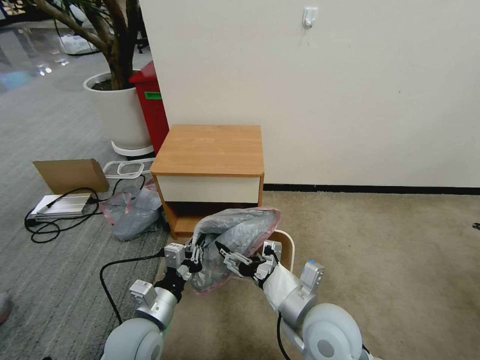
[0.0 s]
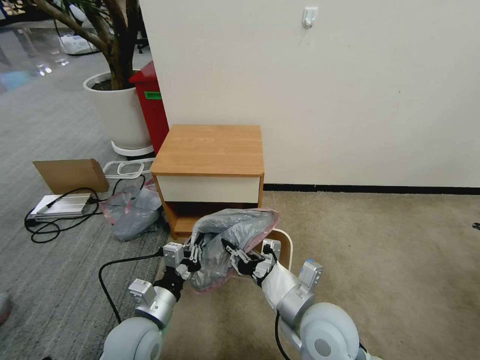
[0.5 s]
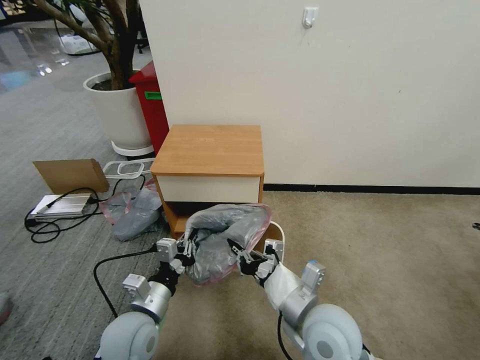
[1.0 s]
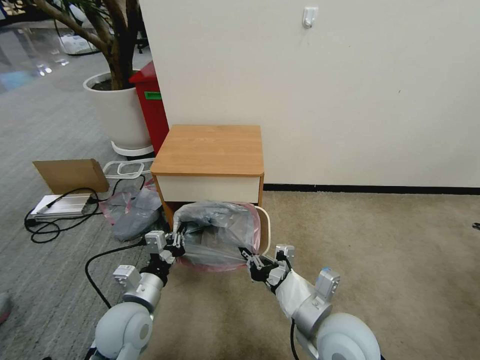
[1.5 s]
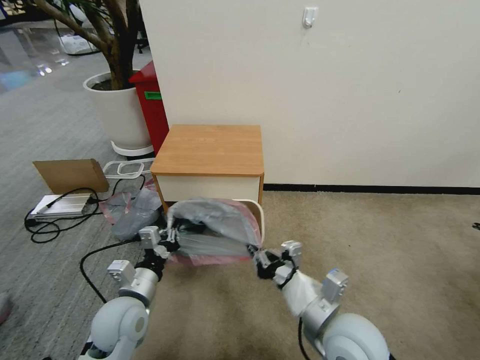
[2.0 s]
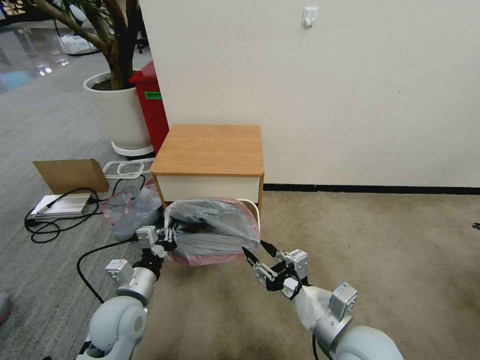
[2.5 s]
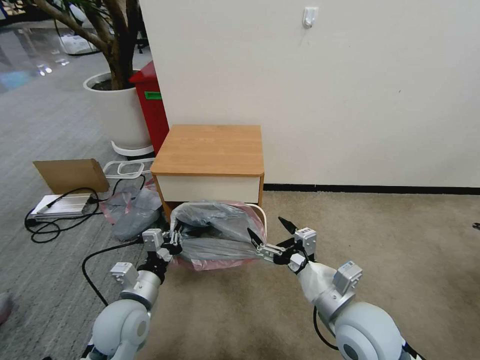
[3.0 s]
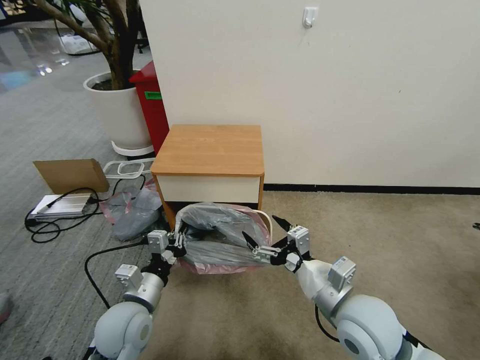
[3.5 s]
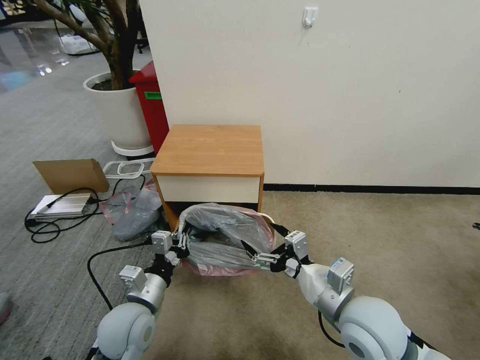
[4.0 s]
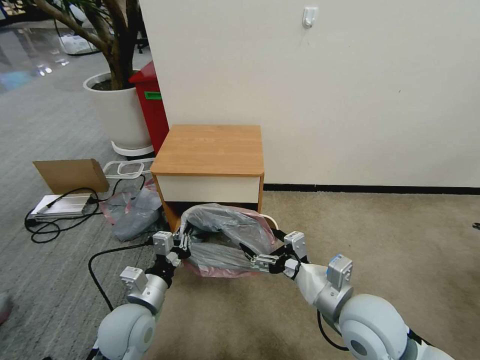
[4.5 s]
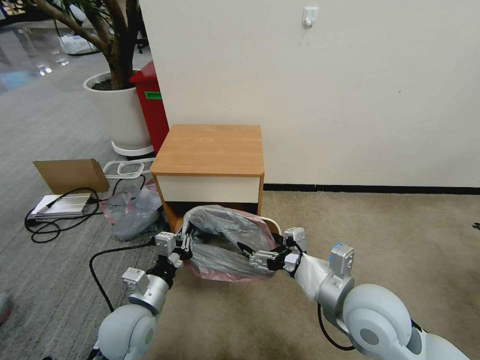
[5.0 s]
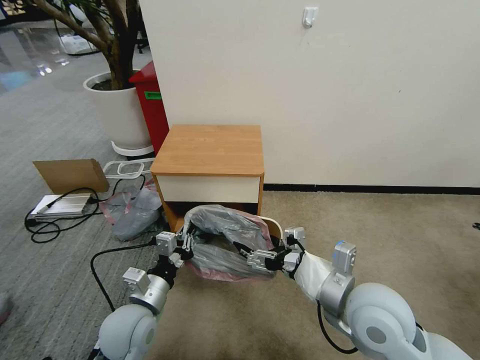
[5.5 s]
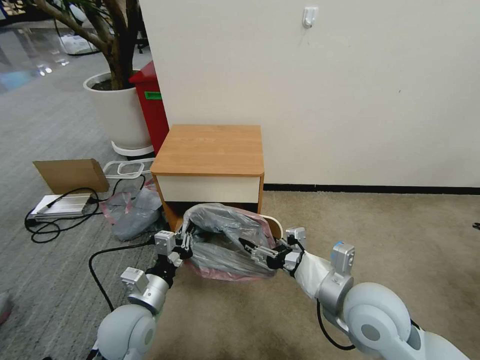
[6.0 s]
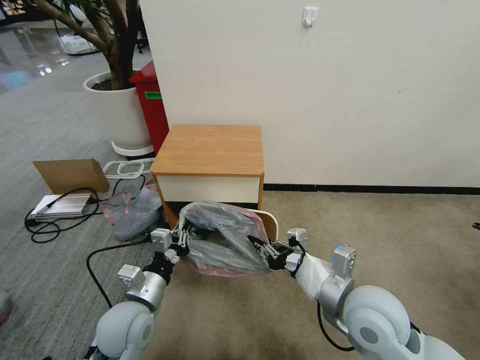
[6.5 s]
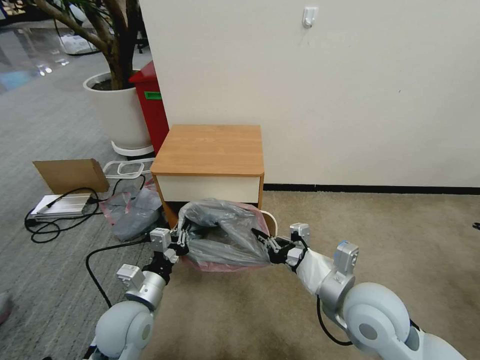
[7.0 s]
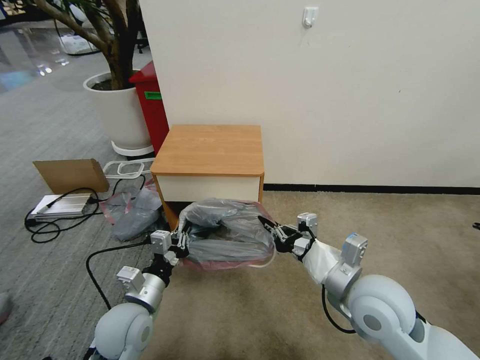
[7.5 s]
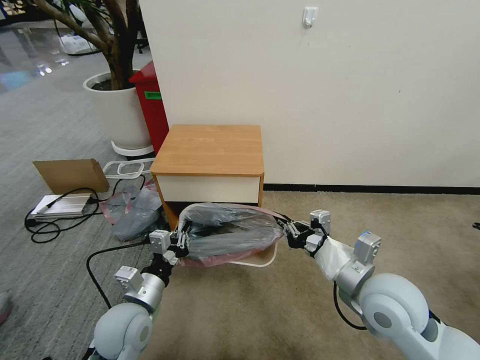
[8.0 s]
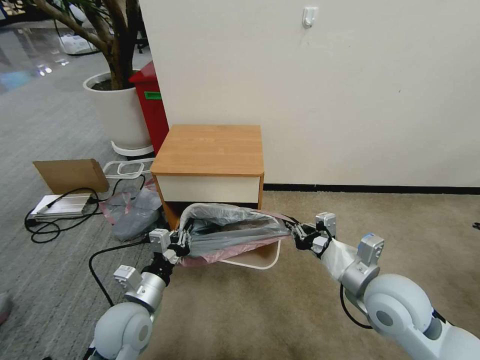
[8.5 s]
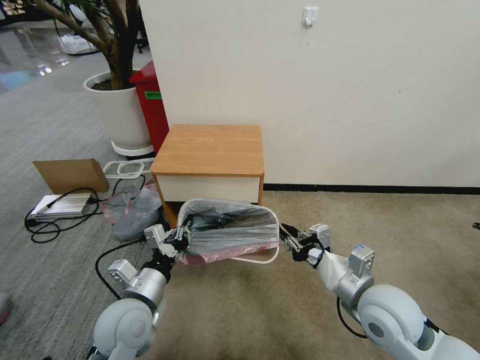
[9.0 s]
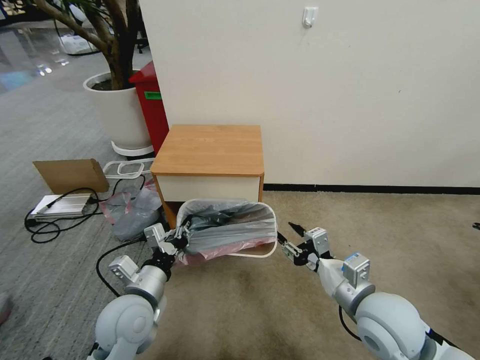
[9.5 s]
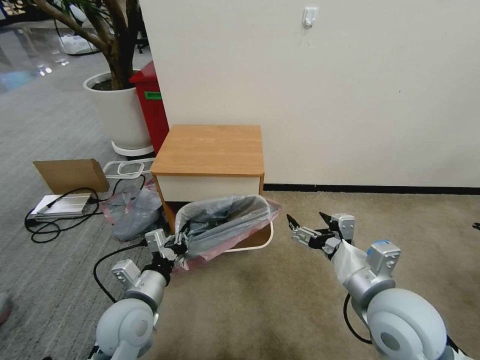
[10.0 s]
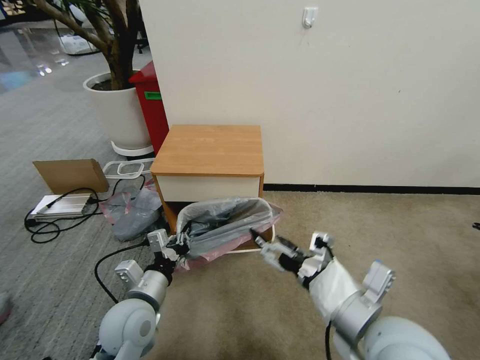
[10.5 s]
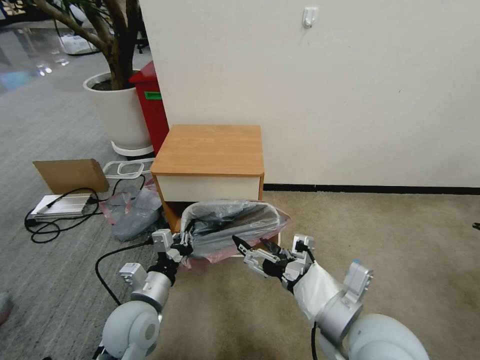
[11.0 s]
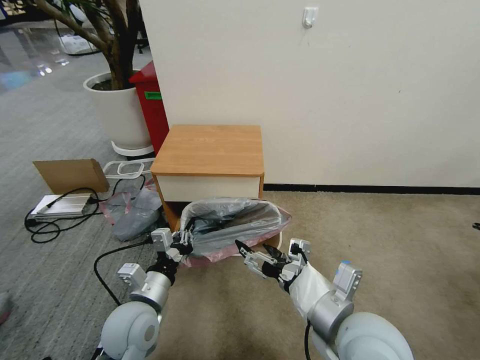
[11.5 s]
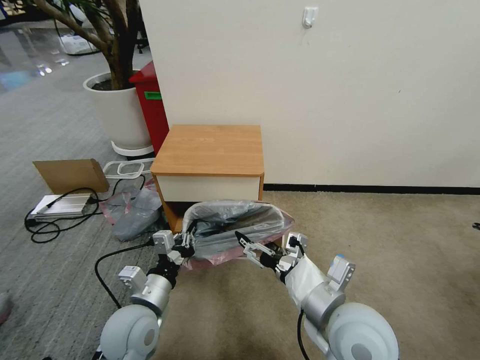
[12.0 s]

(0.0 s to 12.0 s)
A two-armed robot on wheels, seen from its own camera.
Task of the whole recording: Pick up the garbage bag from the table and place it over the trash can.
0.0 s - 2.0 s: The right gripper closes up, while the left gripper ends up about 5 cm from where it was.
2.0 s - 4.0 s: The right gripper opens.
6.0 s - 8.0 s: The right gripper closes its fingers.
8.0 s - 10.0 s: The right gripper opens.
10.0 s - 12.0 s: The right gripper goes about 5 cm to the left.

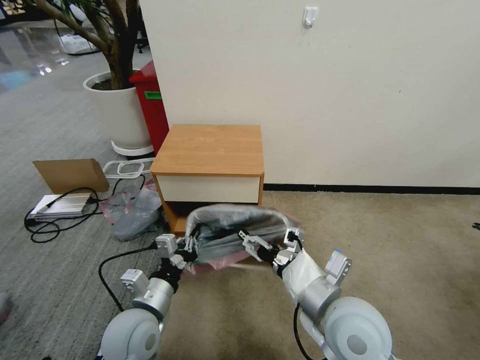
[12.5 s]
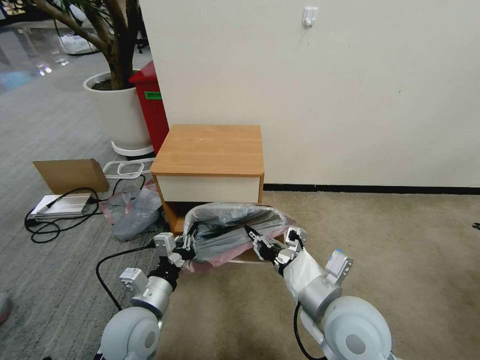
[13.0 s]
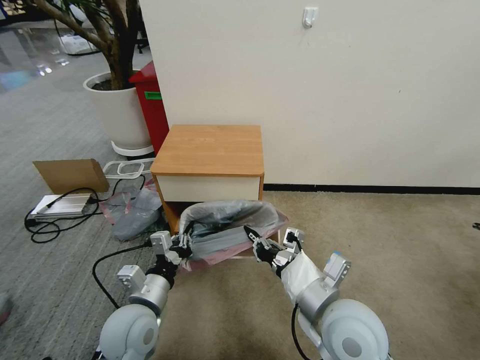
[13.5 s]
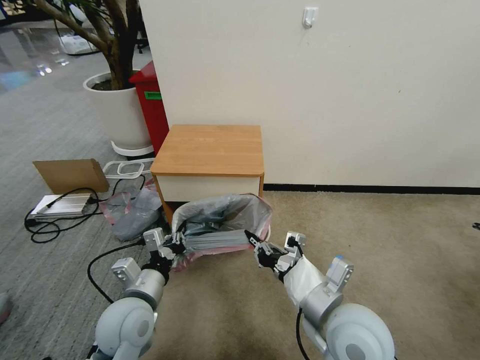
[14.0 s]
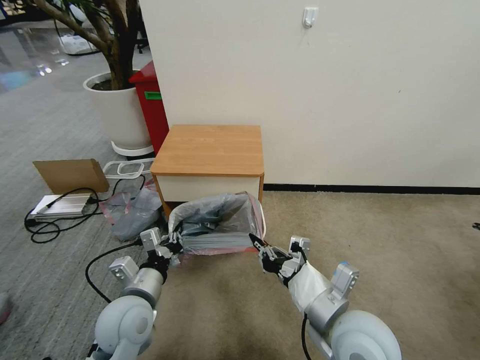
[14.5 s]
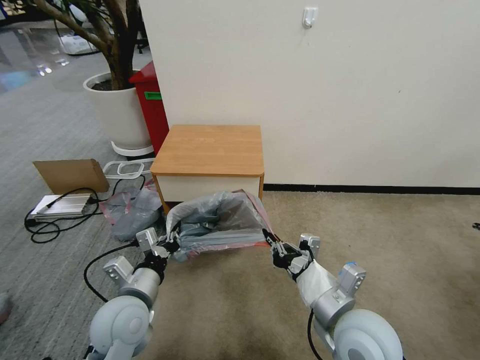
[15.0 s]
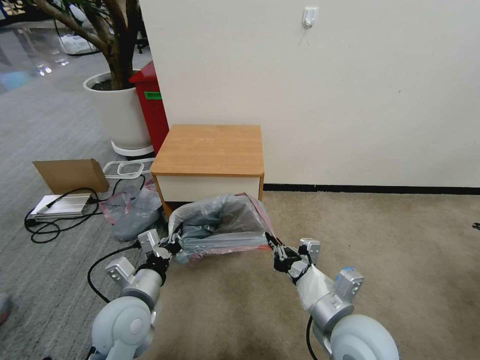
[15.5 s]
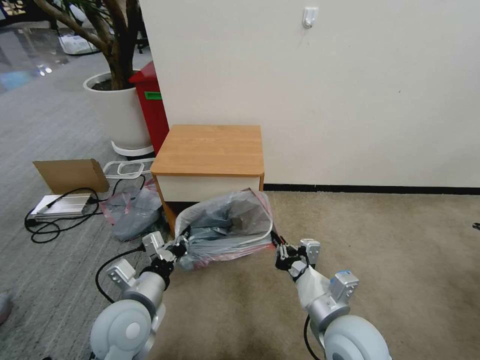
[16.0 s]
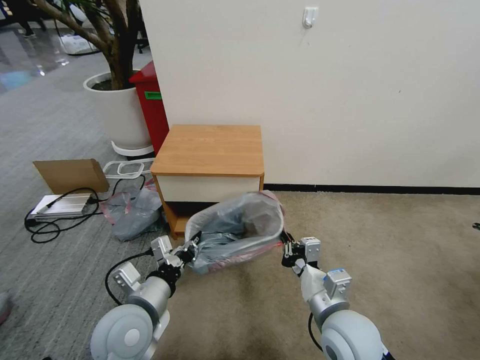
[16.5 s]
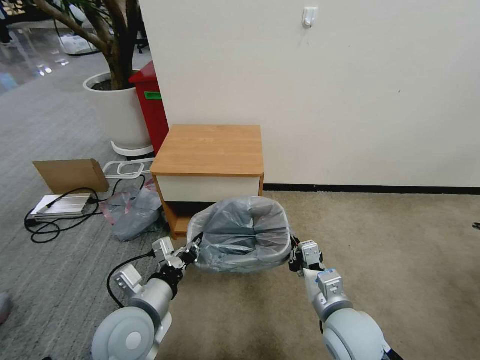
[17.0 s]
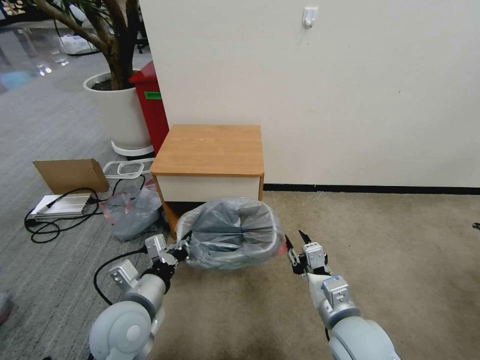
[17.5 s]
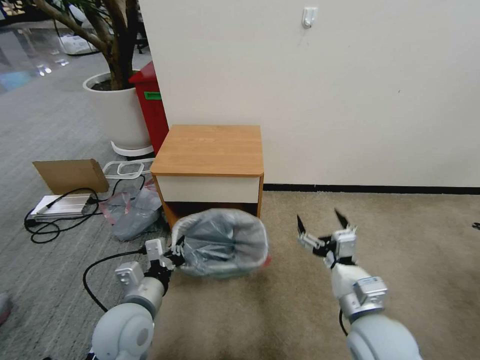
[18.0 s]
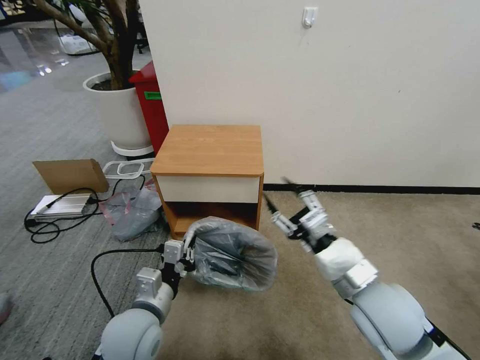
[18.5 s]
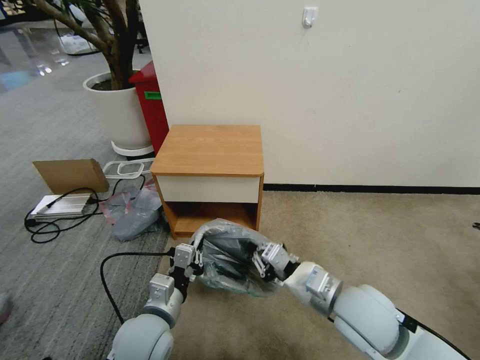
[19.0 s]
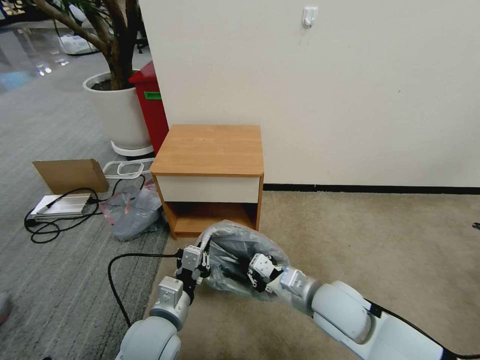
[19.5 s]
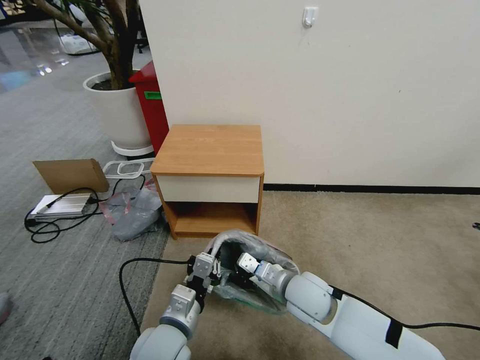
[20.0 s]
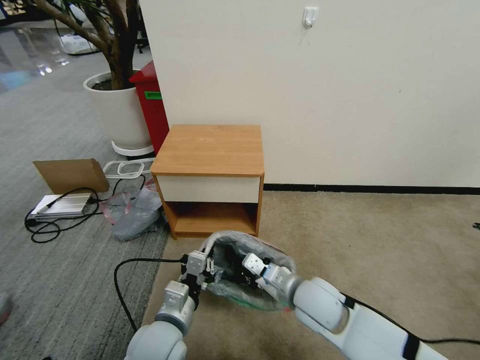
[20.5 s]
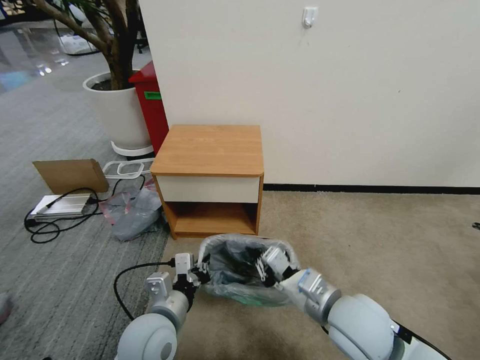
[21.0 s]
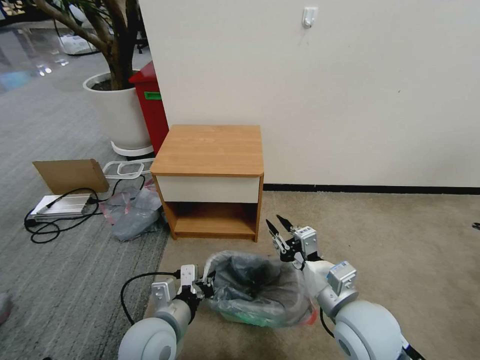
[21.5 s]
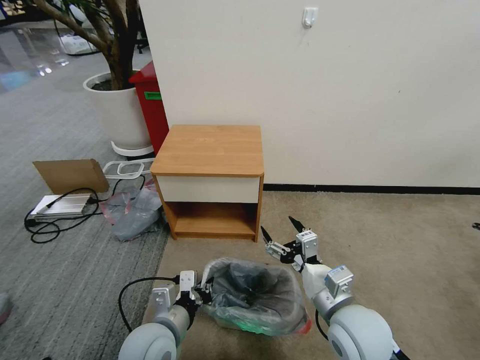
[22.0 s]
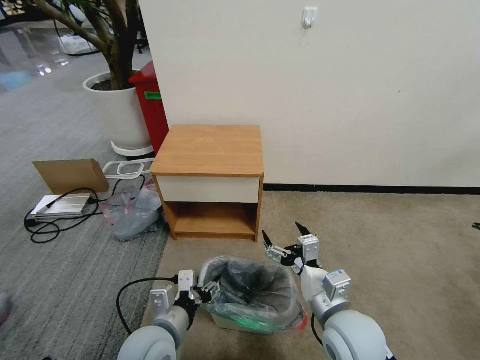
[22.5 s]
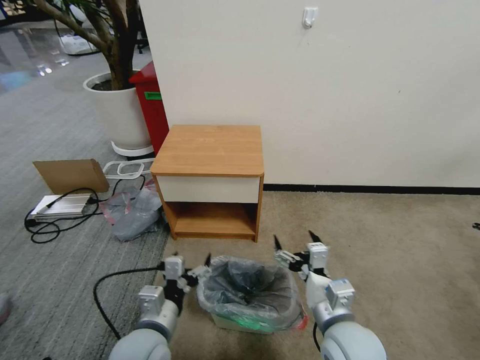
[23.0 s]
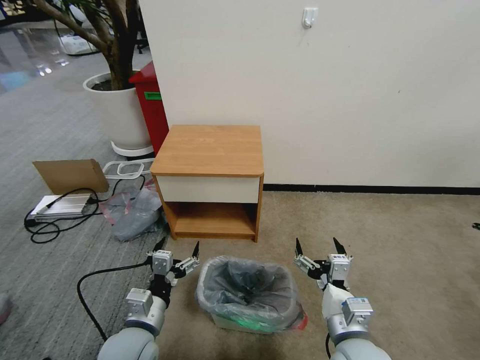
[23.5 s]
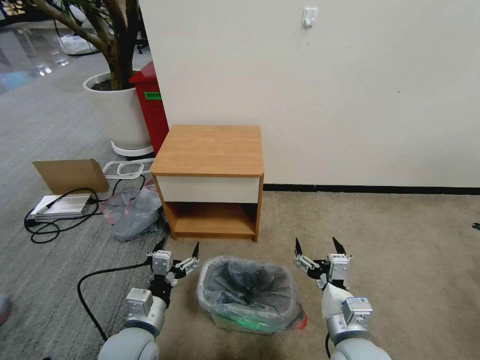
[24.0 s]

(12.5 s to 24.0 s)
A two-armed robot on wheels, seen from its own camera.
Task of the whole recording: Pick up the garbage bag from the table and place it over the trash can.
12.5 s - 14.5 s: The right gripper closes.
14.5 s - 16.5 s: The right gripper shifts roughly 5 cm downward.
16.5 s - 18.5 s: The right gripper goes about 10 cm upward, and opens up.
18.5 s - 20.0 s: The right gripper goes approximately 15 cm downward, to the left and forward, and closes its fingers. Meanwhile the left gripper is displaced to the right by about 5 cm.
20.0 s - 22.0 s: The right gripper travels backward, to the right and upward by some 10 cm, and opens its fingers.
22.0 s - 24.0 s: The right gripper moves some 5 cm. The left gripper opens its fingers.
